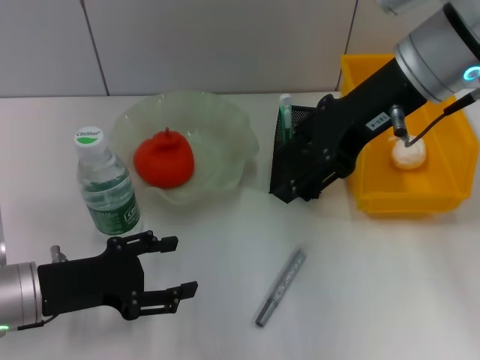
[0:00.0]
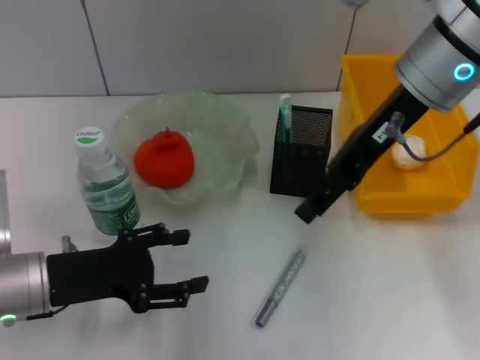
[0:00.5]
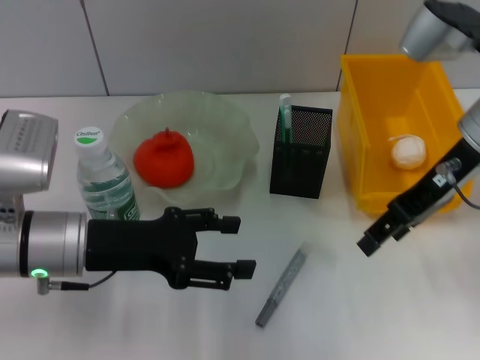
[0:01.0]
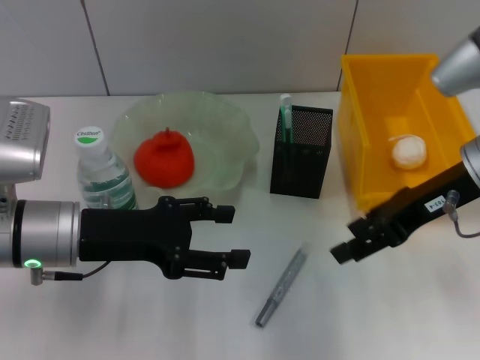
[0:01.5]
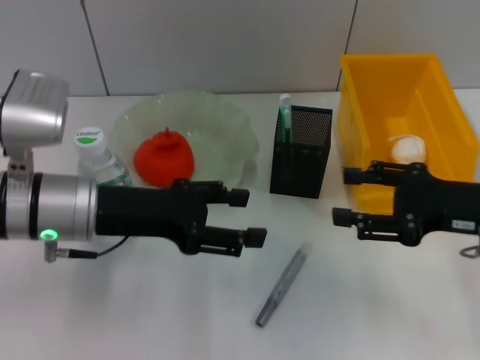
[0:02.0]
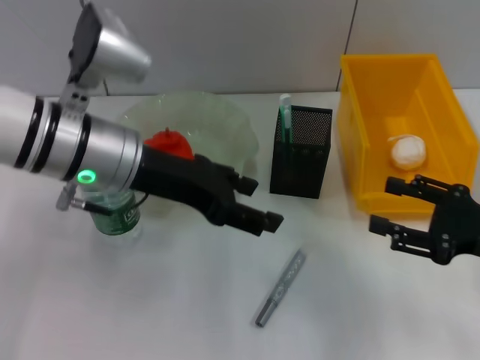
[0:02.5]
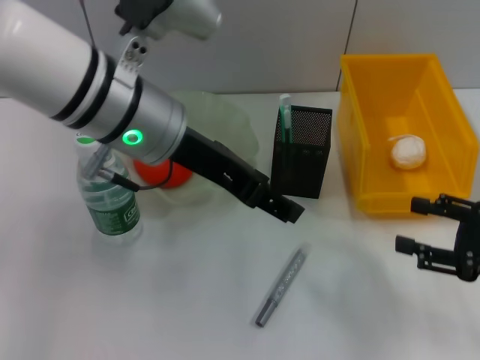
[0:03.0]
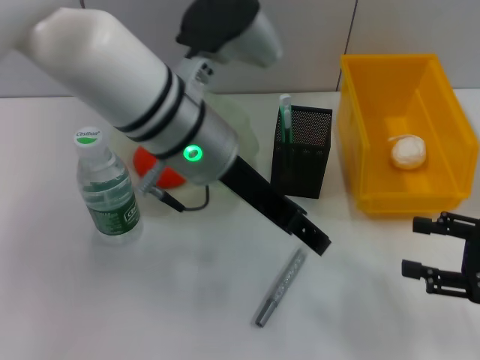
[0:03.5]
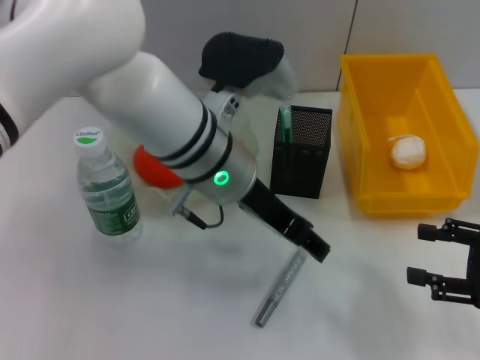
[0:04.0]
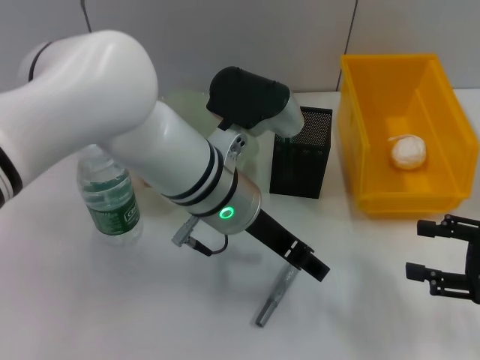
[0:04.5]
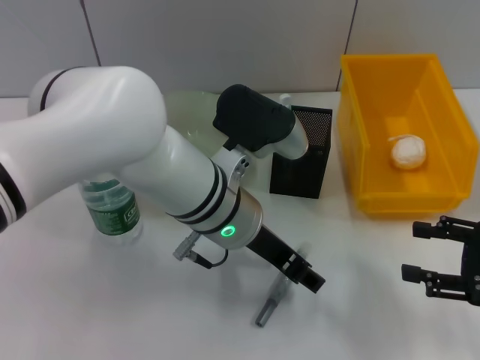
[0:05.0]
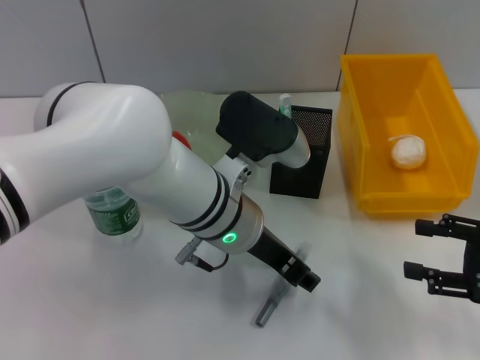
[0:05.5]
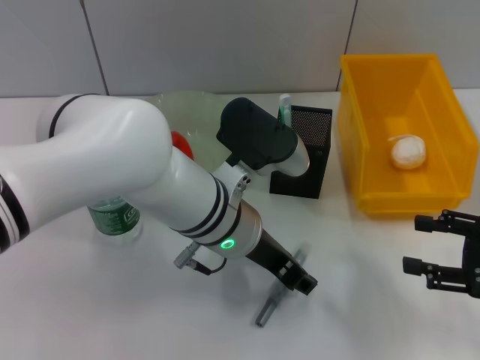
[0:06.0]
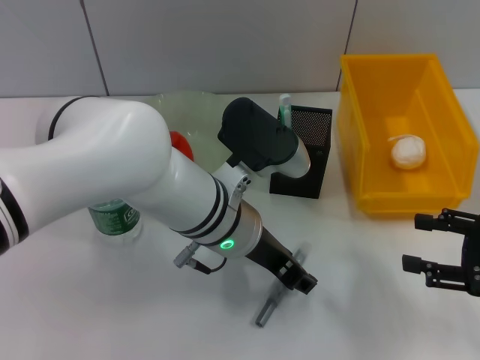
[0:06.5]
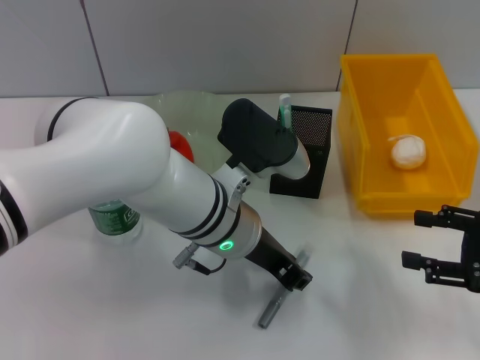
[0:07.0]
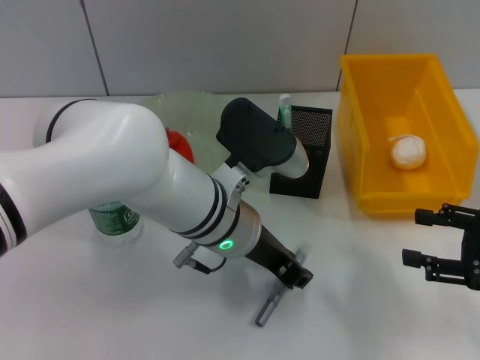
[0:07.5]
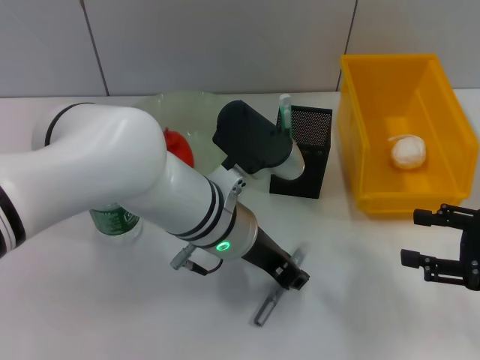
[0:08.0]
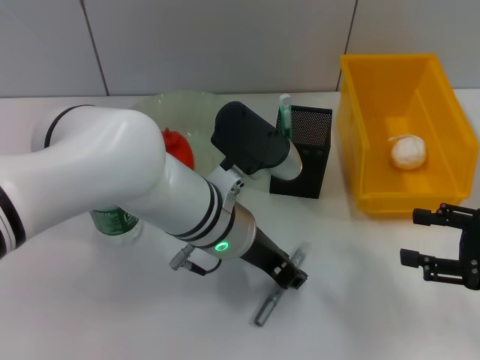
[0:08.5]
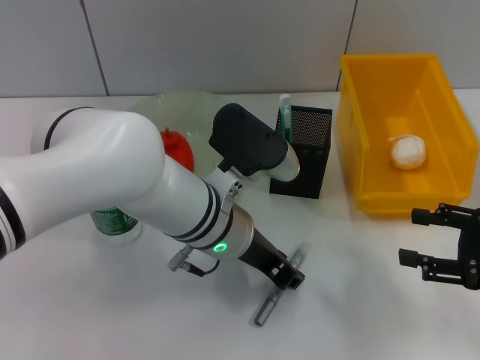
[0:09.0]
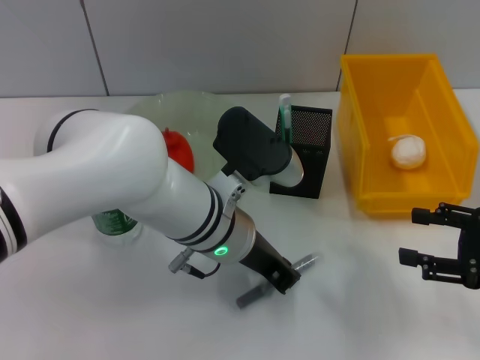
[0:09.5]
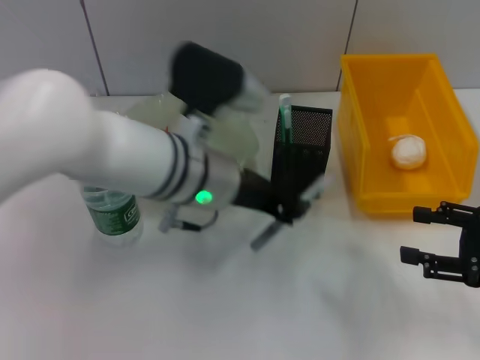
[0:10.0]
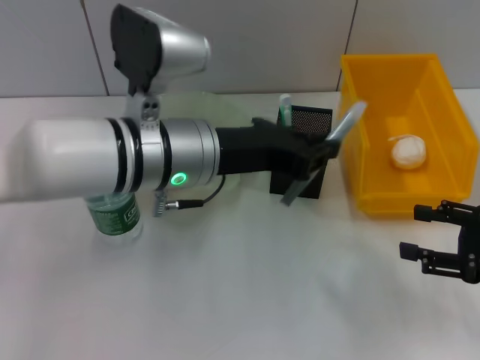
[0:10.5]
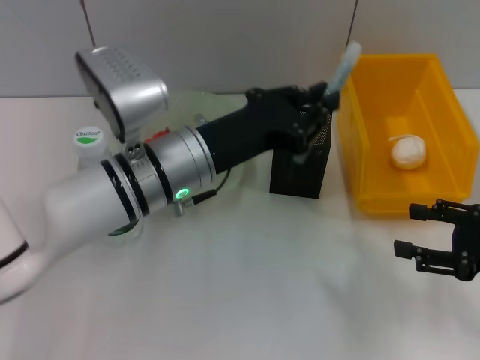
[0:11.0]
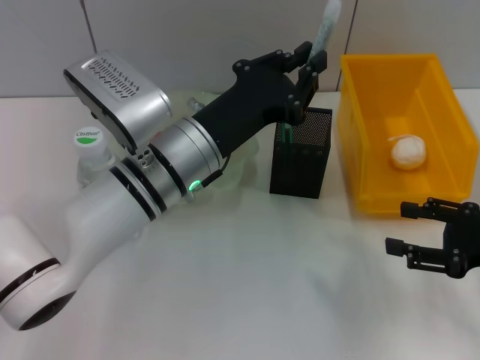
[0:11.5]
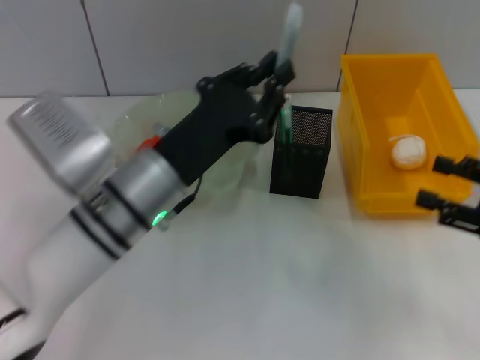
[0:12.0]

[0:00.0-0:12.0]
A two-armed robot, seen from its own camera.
Step, 0:00.0 to 0:09.0: Grab the gray glue with the left hand.
0:00.0 to 0:02.0: The right gripper goes some 20 cm downward, to the right and backward, while the left gripper is displaced upward, to the right and forward by approximately 10 cm.
0:02.0 to 0:04.0: The right gripper travels to the right and backward by approximately 10 cm; the left gripper travels to the right by roughly 15 cm.
0:04.0 to 0:06.0: The left gripper goes roughly 5 cm downward.
0:06.0 to 0:08.0: Both grippers stay put.
0:08.0 to 0:10.0: The left gripper moves approximately 5 cm, and closes.
0:10.0 to 0:12.0: The left gripper changes place by some 5 cm.

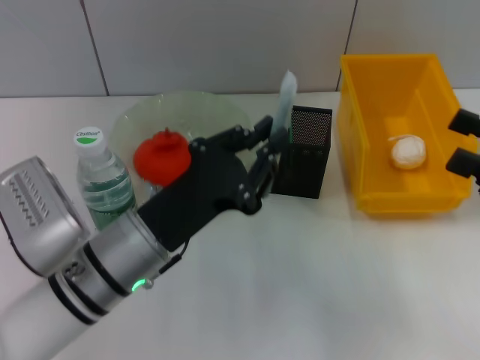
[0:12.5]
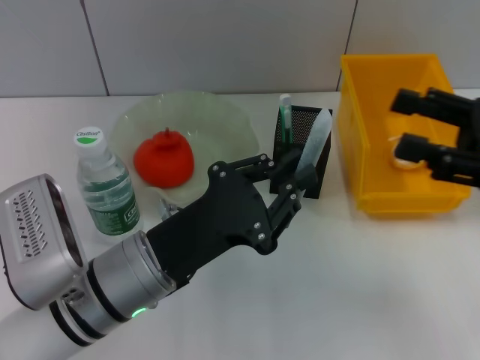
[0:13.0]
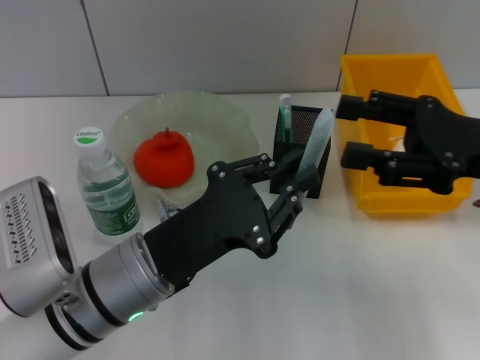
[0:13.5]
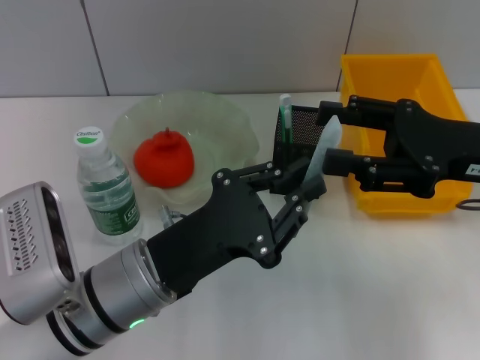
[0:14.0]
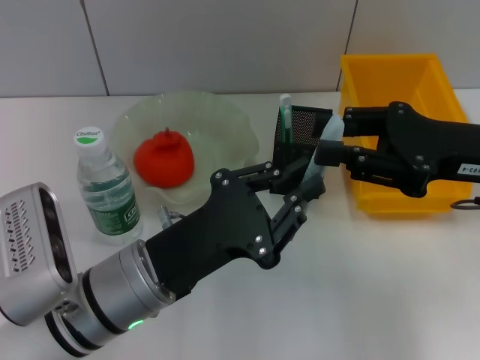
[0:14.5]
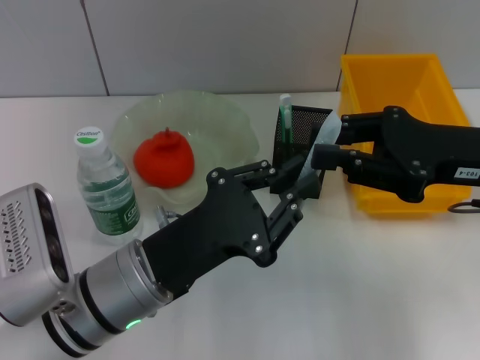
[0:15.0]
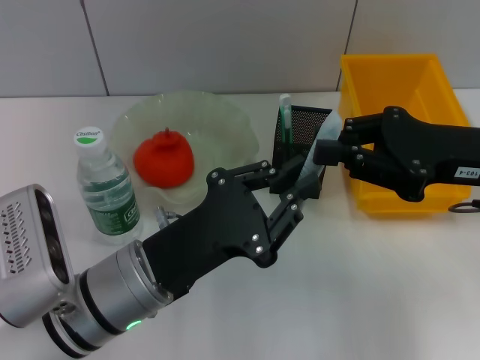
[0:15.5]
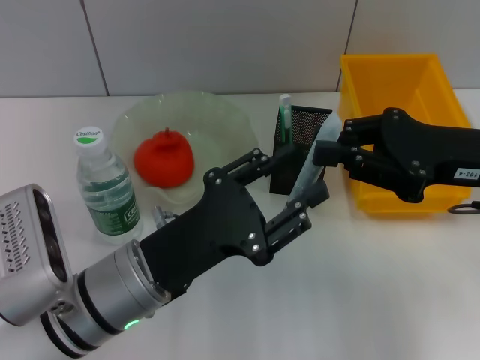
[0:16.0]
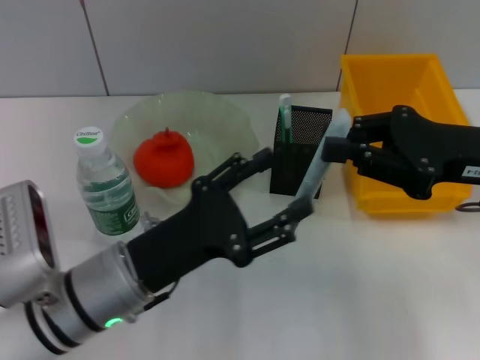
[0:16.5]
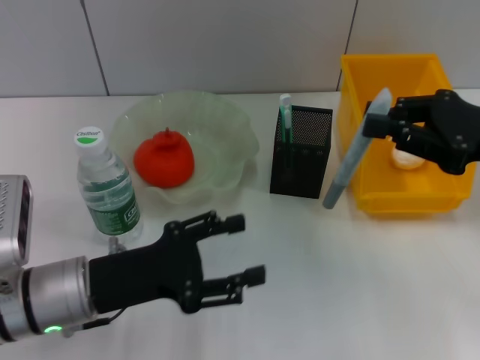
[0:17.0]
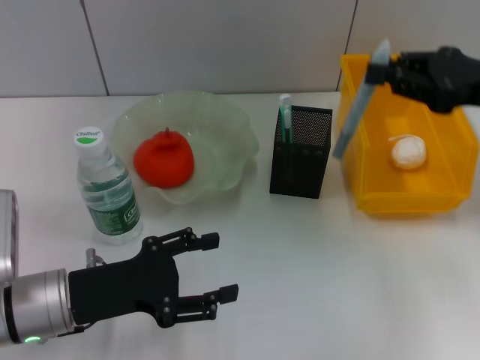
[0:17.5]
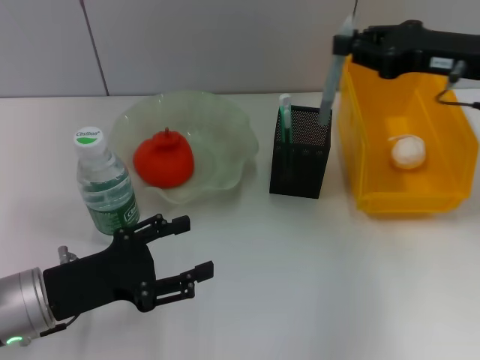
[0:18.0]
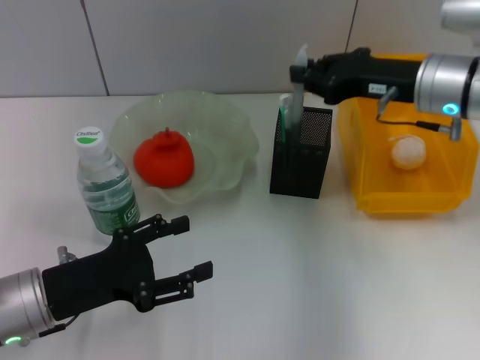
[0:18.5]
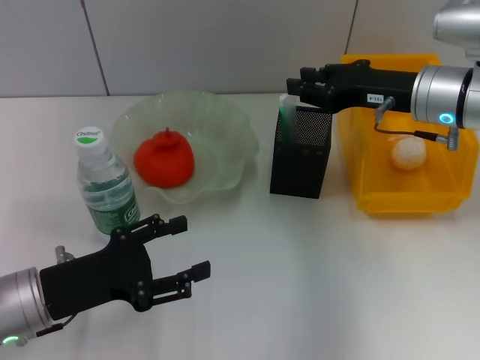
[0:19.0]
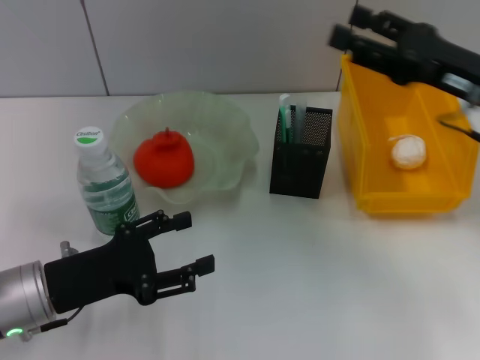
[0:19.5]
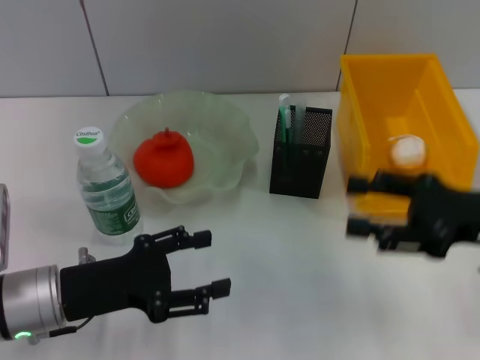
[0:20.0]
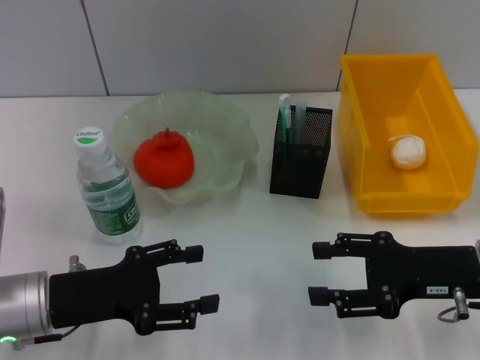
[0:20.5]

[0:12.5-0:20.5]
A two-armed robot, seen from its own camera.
Step, 0:12.5 to 0:15.5: Pass the gray spring-action pen from the left hand to the right hand.
Step, 0:16.0 to 0:19.0: Place the gray glue into the pen holder with the right hand.
0:12.5 to 0:14.5: The right gripper is displaced to the left and forward by some 10 cm.
0:14.5 to 0:16.5: The left gripper opens its fingers. The right gripper closes up.
0:16.5 to 0:18.5: The right gripper is displaced forward by about 10 cm. The left gripper shifts roughly 10 cm to the left.
0:18.5 to 0:20.5: The right gripper heads backward and downward, covering roughly 15 cm, and opens up.
